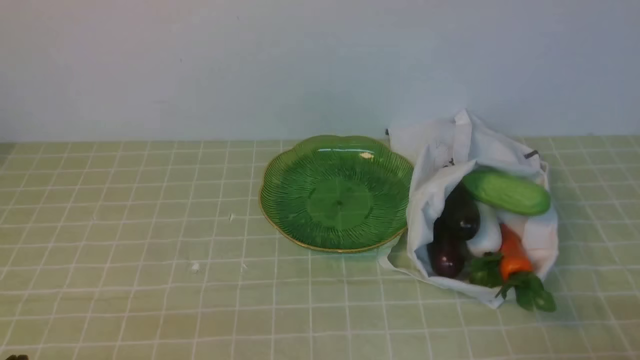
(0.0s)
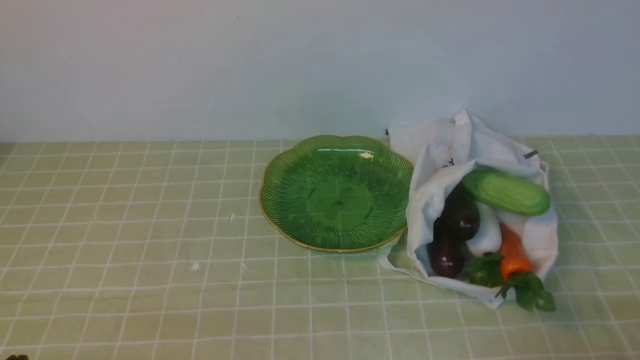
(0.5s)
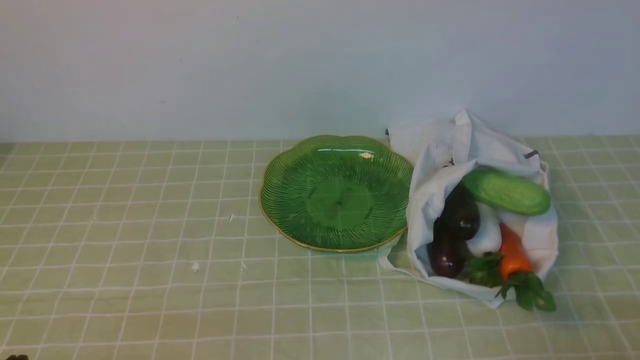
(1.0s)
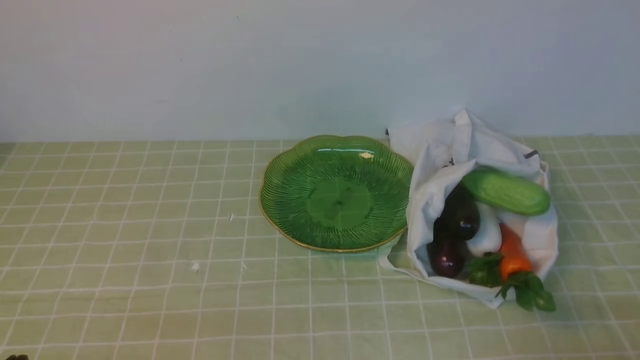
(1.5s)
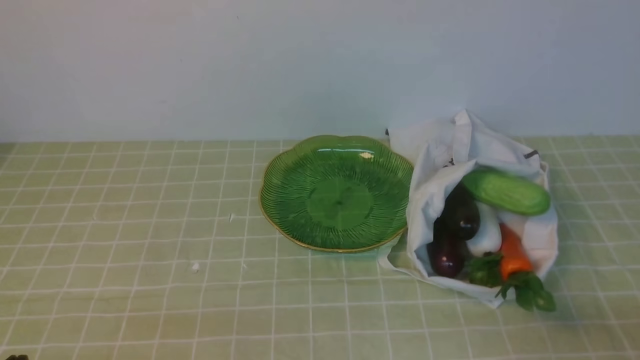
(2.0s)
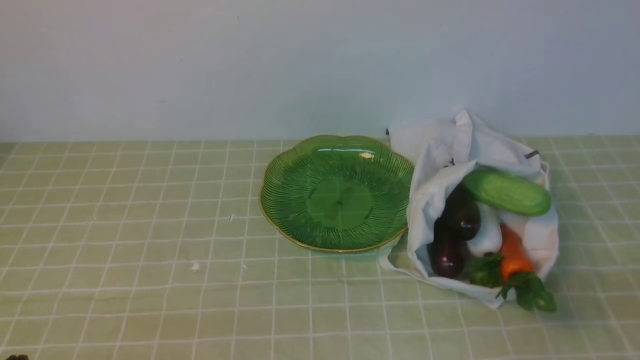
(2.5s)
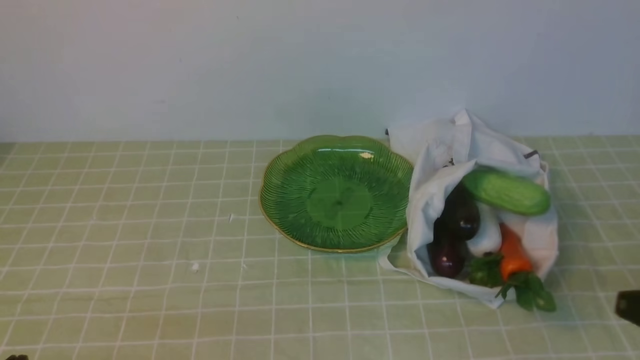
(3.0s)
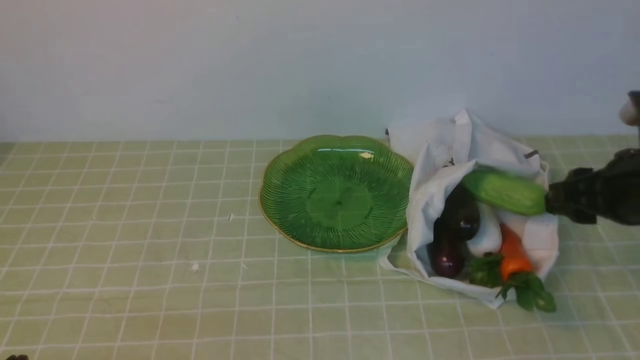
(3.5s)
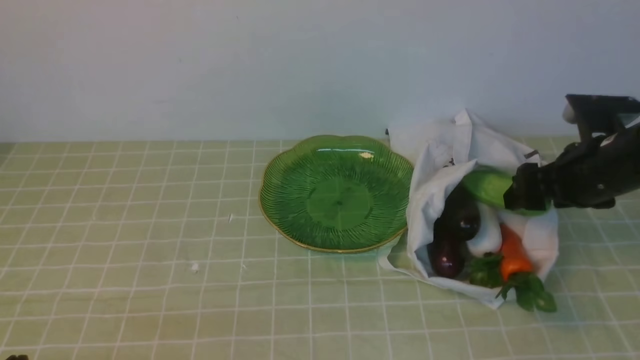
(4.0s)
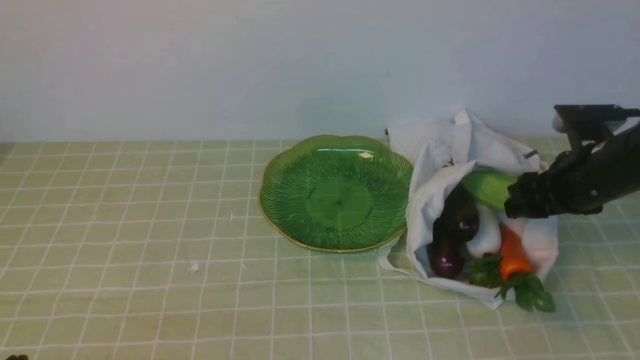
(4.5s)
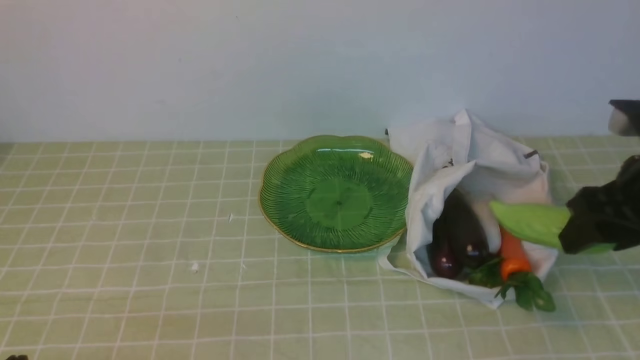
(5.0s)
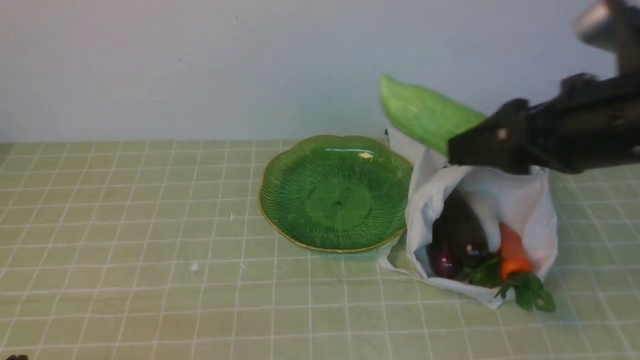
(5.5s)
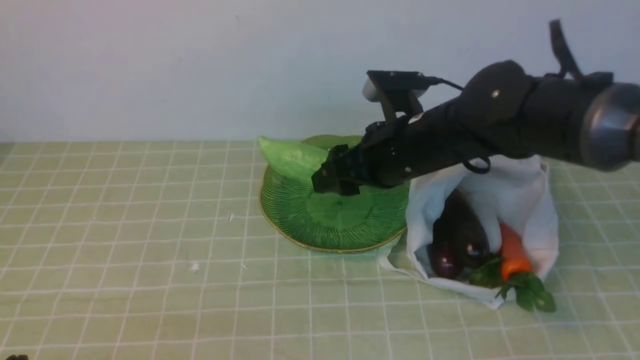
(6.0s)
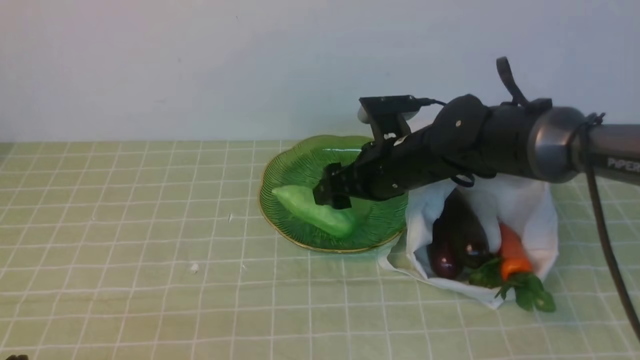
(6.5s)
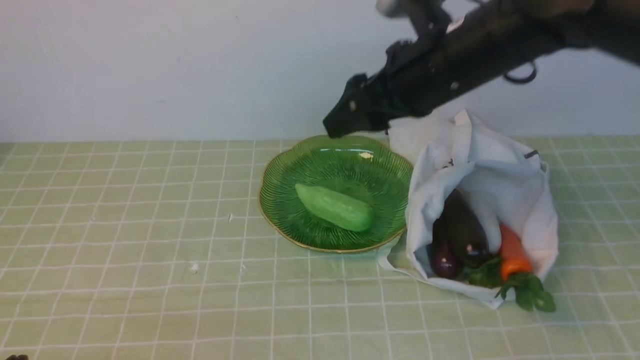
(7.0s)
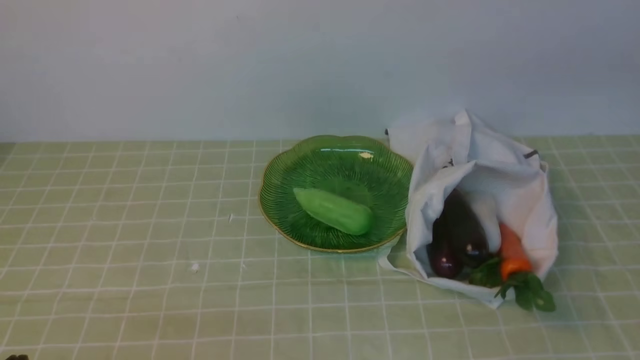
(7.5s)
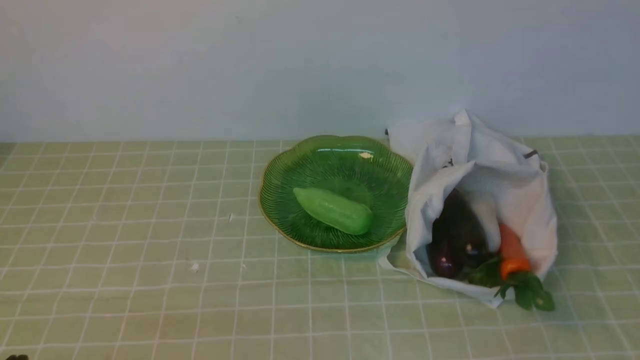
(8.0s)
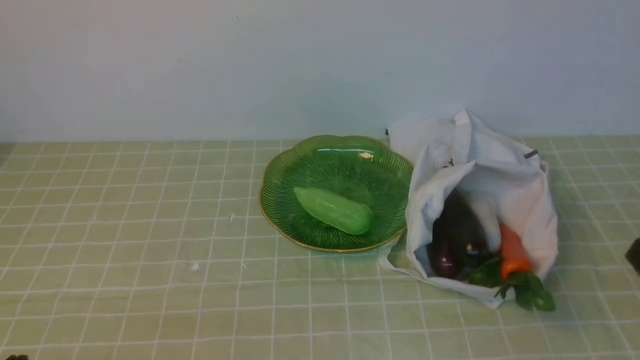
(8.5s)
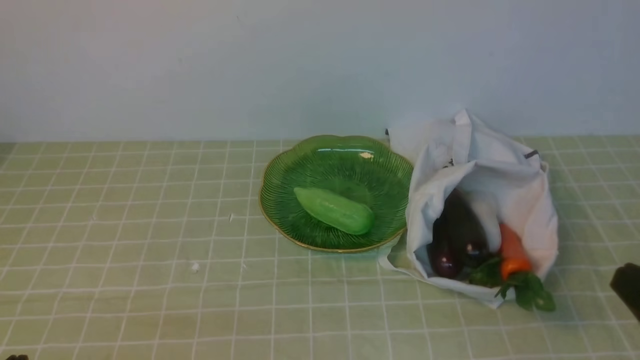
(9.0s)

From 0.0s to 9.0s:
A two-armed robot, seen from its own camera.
Task of the whole recording: take vegetables from bag on green coffee tablecloth place on plate.
Step, from 0.0s to 4.5s: Grasp the bitter melon with right gripper.
Step, from 5.0s to 6.0s: Place the bitter melon on the plate with right gripper.
From 2.0s to 4.5s: The right gripper goes approximately 30 cm forward, and opens its fingers.
From 4.5s to 7.0s: The right gripper goes roughly 25 cm to the left and upward.
From 7.0s to 9.0s: The right gripper goes approximately 35 cm backward, to the right and downward, and closes its fingers.

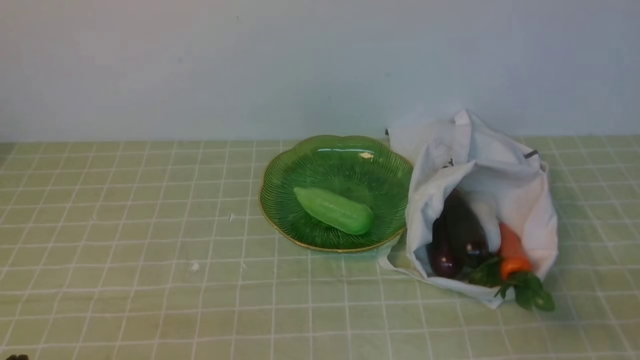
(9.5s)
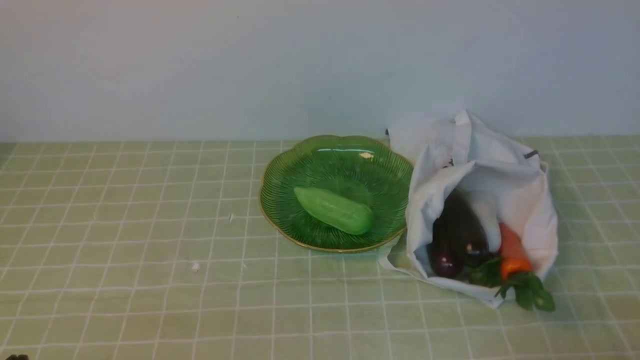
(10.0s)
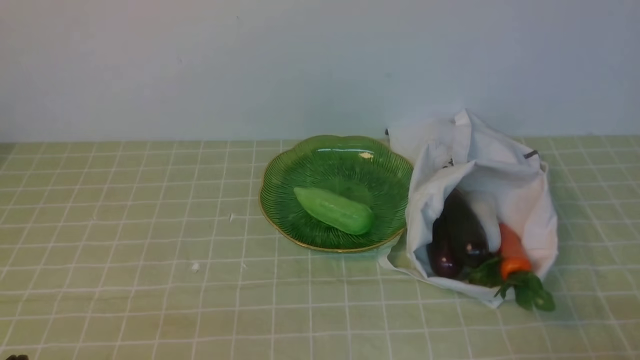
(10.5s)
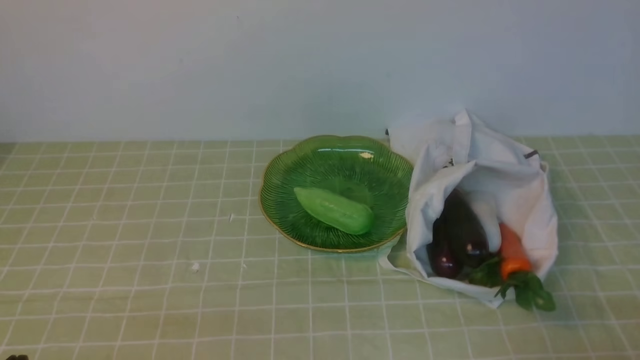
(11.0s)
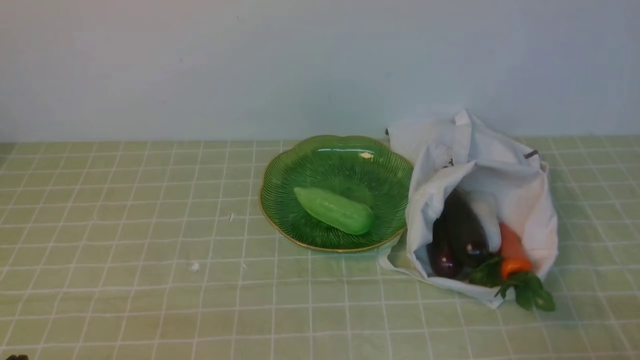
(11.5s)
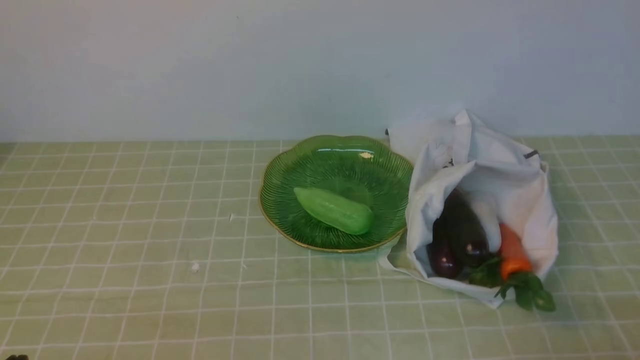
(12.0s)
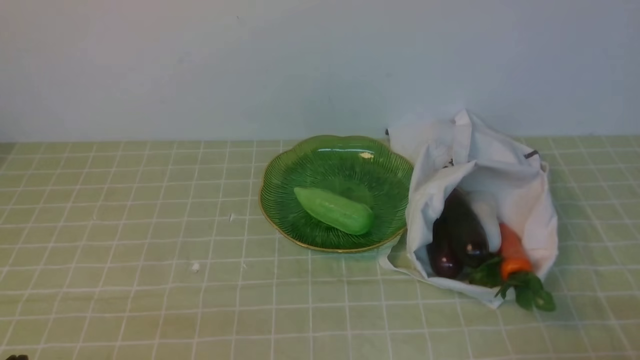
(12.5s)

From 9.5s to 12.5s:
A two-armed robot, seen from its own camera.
Task of the whole recording: take vegetables from bag on green coffee tablecloth place on plate.
From 11.0s to 12.5s: Both grippers stay put.
